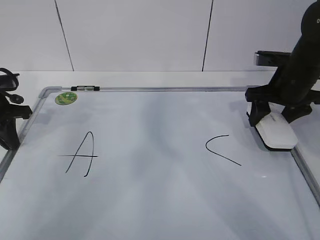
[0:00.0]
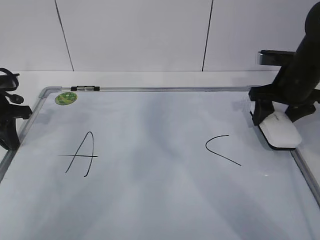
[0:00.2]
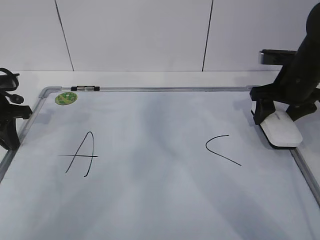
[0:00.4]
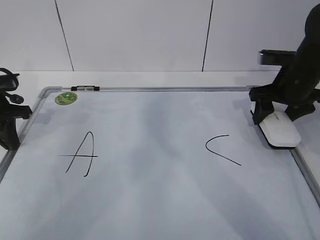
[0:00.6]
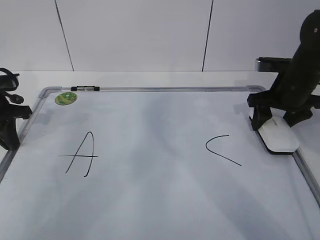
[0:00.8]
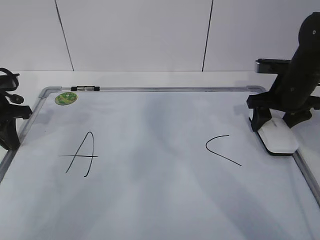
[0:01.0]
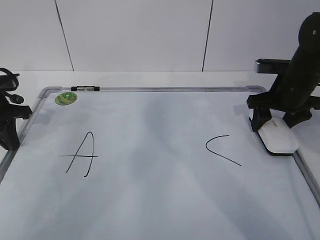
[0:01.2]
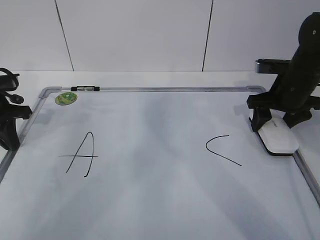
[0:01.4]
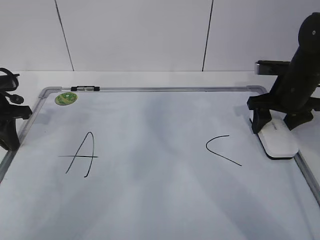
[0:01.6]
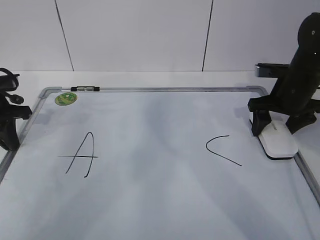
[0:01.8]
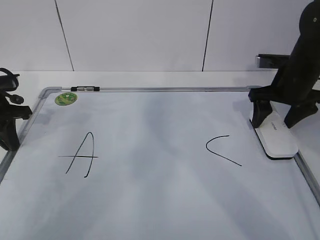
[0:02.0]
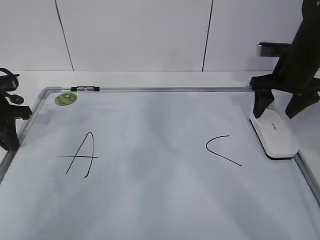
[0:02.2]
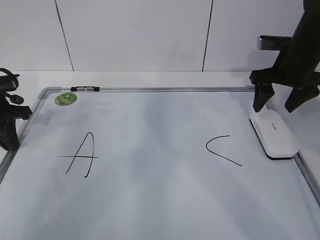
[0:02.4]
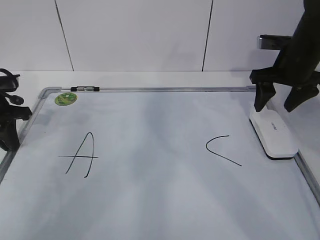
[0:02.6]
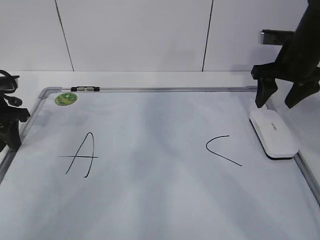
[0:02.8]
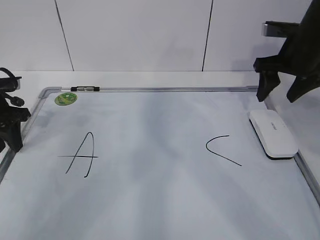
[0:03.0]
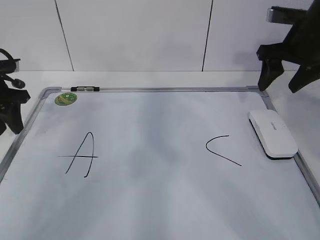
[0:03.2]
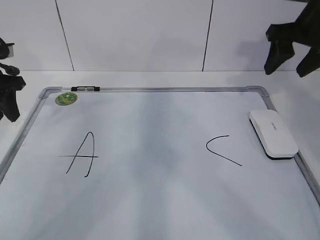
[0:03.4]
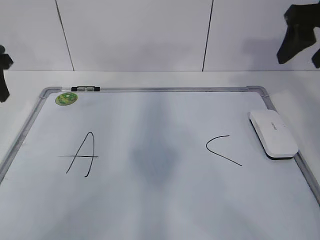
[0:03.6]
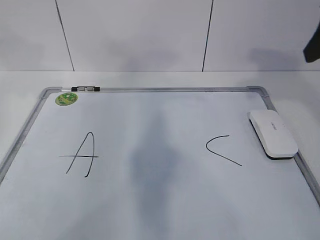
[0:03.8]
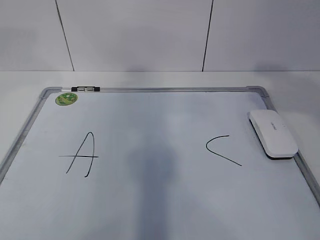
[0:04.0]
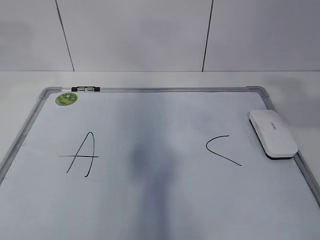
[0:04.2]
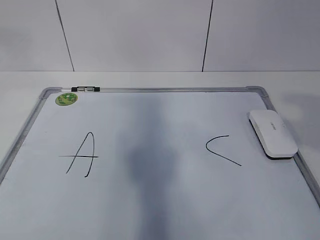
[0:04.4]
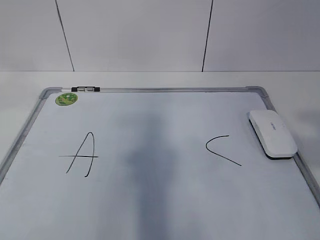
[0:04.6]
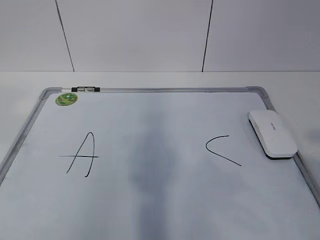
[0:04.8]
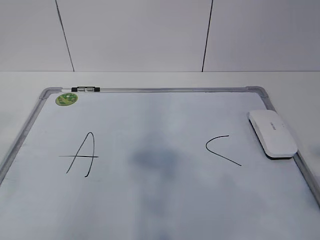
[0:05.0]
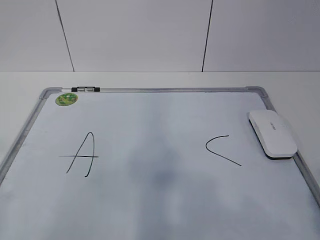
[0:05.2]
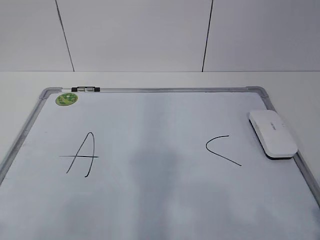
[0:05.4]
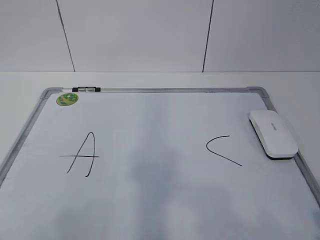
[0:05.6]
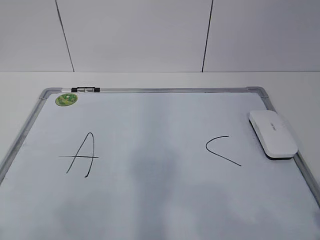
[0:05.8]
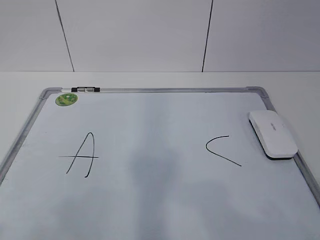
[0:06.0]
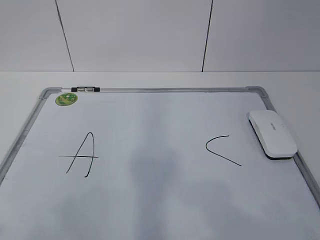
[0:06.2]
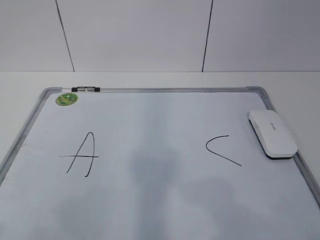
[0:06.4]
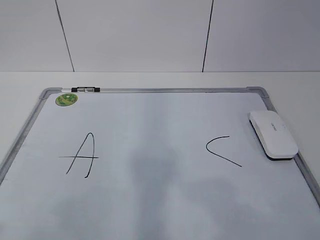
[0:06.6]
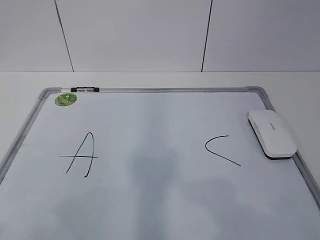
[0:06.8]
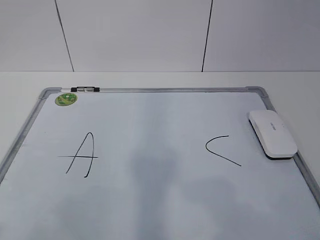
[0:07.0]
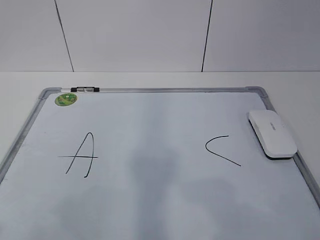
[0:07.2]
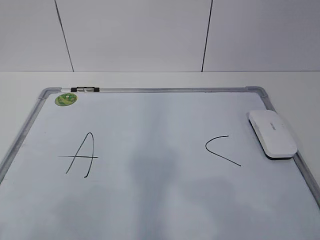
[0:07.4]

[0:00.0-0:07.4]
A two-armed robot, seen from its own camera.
Task of the whole recording: pick up the eraser on the blackboard and erase the letter "B".
0:00.0 to 0:01.4: There are only small adjustments of the grippers.
0:01.4 to 0:03.0: The left gripper opens. The right gripper goes some 5 cm upward, and opens, then closes again.
0:03.0 to 0:04.4: The left gripper travels upward and backward by approximately 35 cm; the right gripper goes about 35 cm backward and upward.
0:04.4 to 0:06.0: The left gripper goes approximately 25 cm backward and downward. The right gripper goes approximately 15 cm downward and backward.

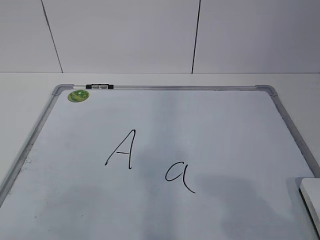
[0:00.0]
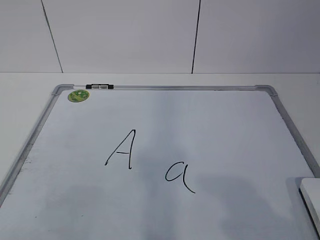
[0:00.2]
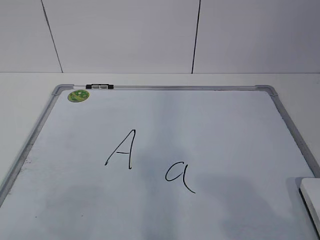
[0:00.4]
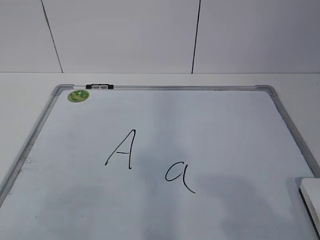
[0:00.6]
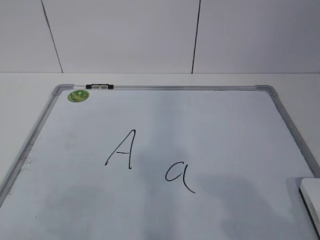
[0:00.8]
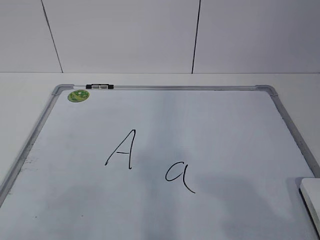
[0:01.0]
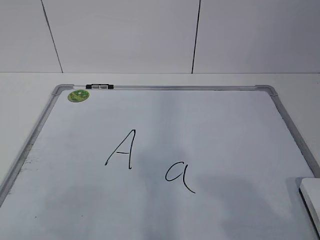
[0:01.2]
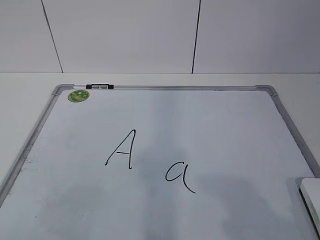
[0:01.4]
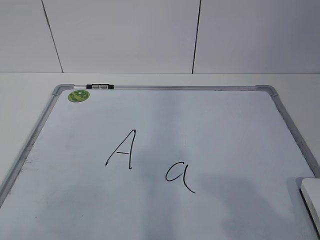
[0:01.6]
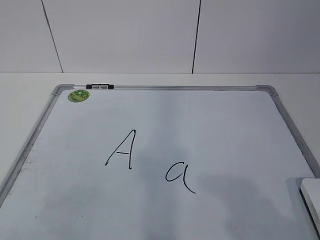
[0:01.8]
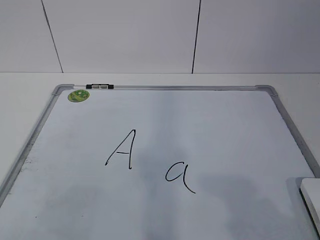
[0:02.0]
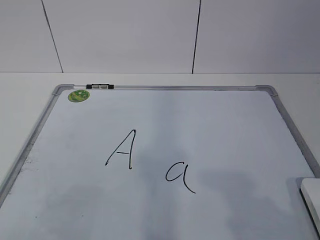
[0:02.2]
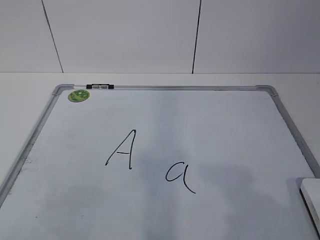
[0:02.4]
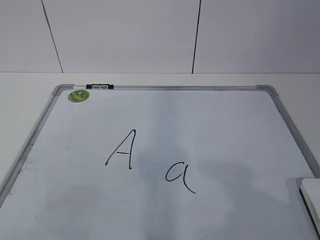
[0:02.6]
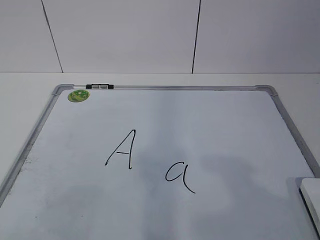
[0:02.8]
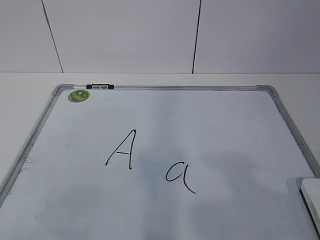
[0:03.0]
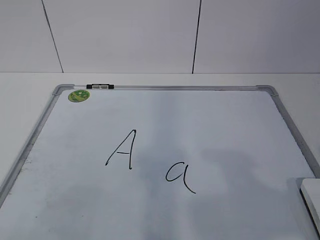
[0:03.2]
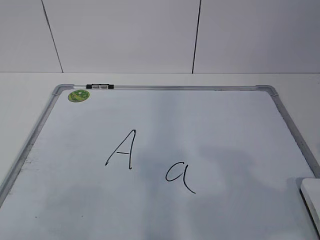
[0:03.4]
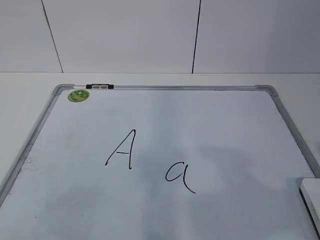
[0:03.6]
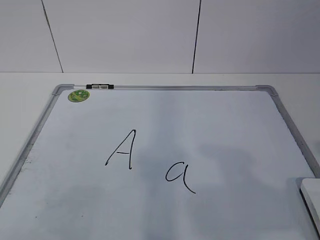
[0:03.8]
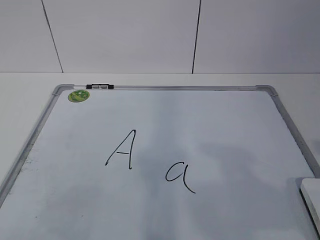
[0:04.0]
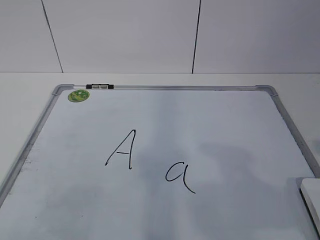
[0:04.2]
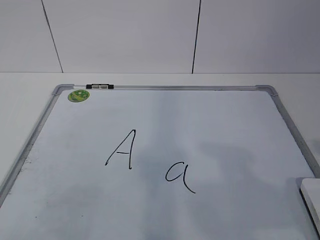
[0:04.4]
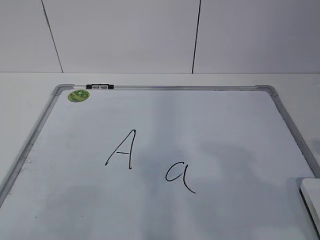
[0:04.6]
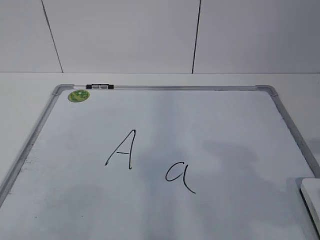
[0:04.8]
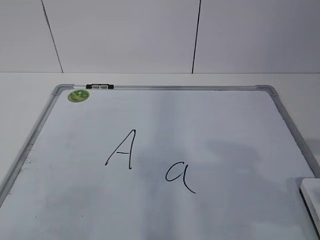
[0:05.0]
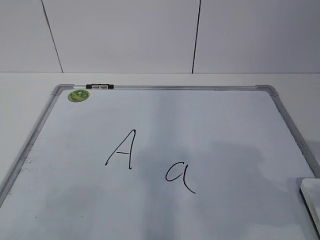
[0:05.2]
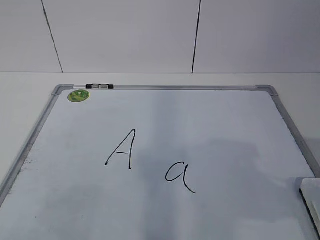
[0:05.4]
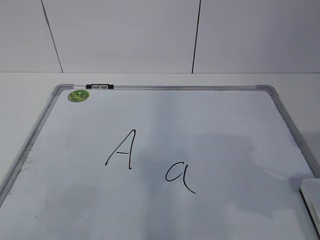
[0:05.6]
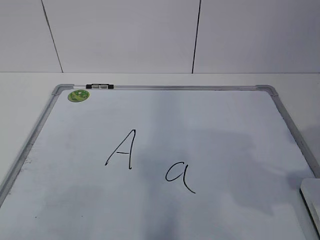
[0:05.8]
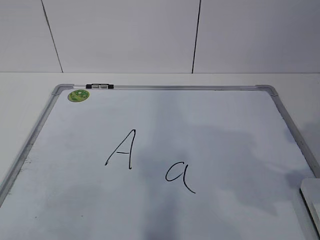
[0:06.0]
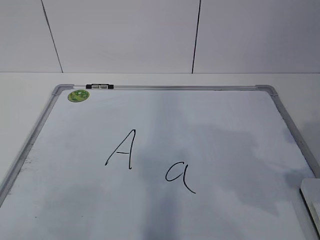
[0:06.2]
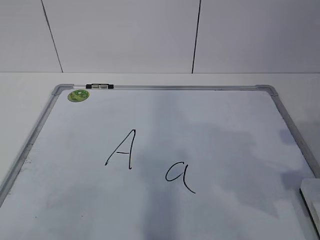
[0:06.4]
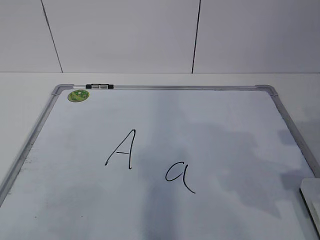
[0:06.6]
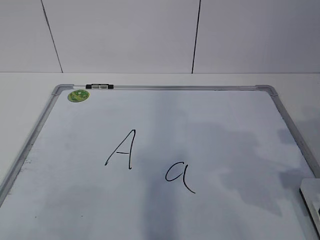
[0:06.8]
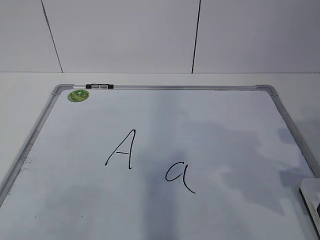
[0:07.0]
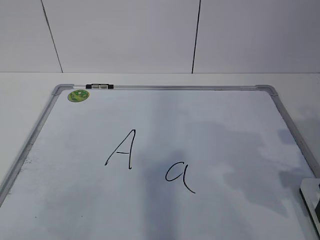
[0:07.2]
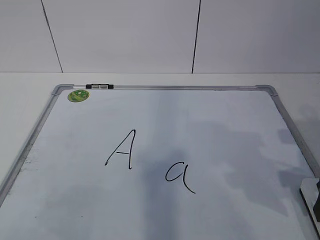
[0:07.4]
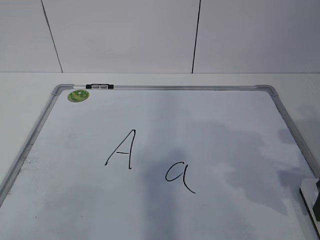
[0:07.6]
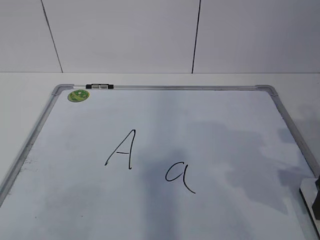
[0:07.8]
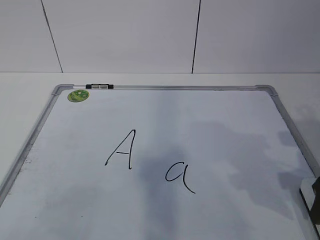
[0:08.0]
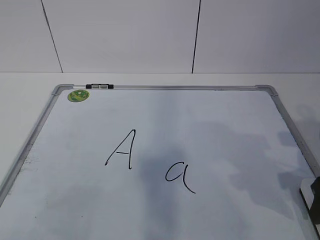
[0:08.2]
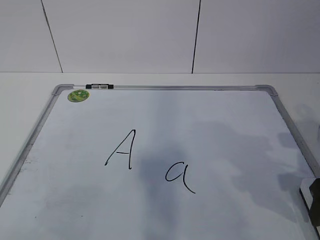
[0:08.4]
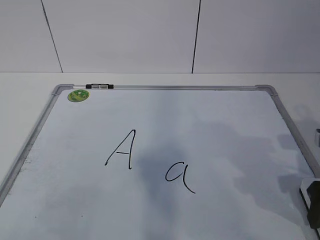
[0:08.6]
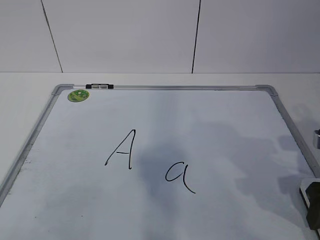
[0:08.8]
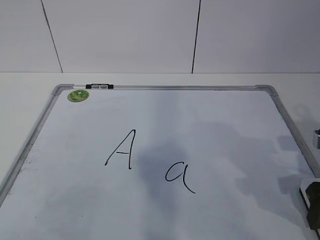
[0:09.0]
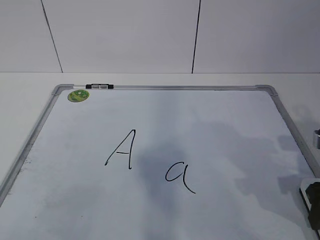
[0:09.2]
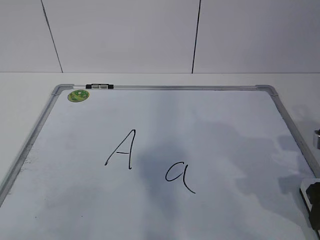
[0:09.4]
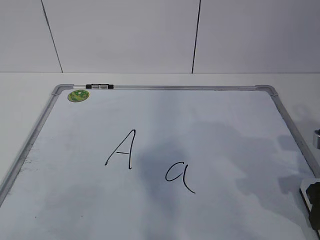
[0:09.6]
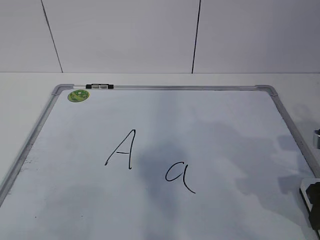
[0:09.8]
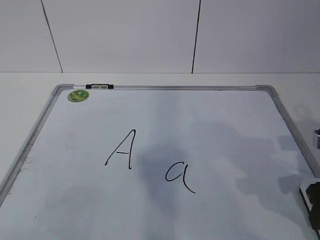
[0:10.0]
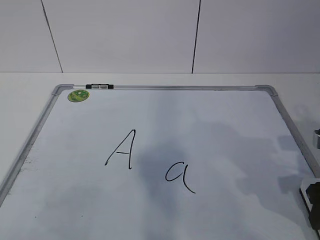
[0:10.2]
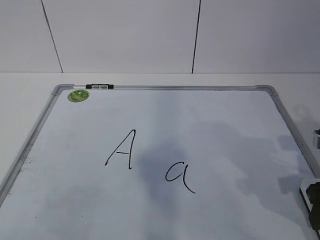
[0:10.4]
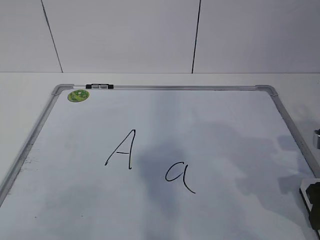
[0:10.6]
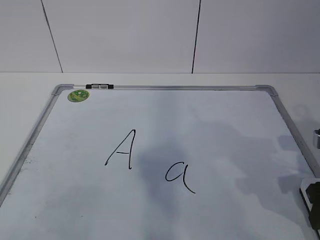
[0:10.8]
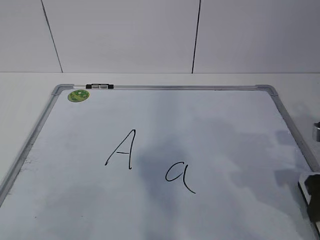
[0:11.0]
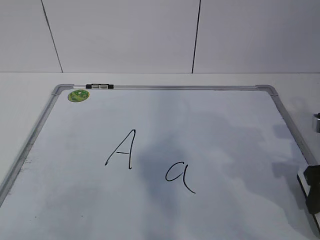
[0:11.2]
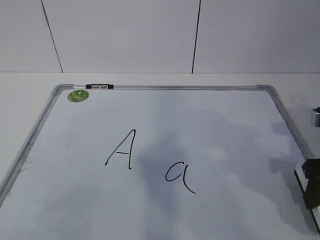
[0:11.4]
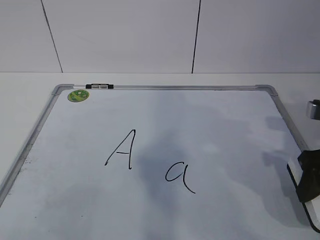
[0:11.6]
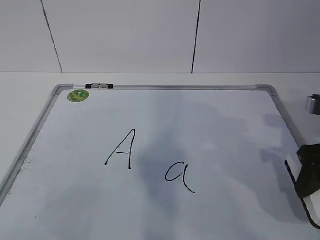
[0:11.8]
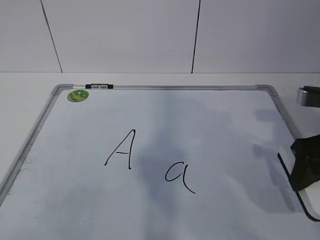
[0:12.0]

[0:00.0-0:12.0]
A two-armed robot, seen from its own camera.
Task of the whole recording: pick up the eraser on the blackboard and erase the letter "a".
0:10.4 to 0:12.0: The right gripper shifts about 5 cm upward.

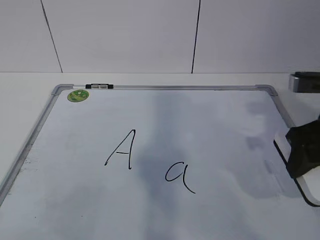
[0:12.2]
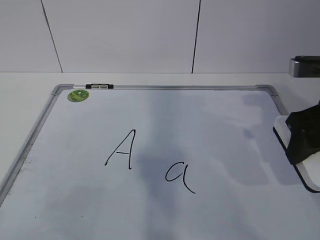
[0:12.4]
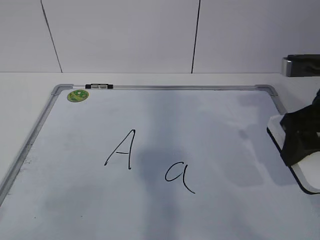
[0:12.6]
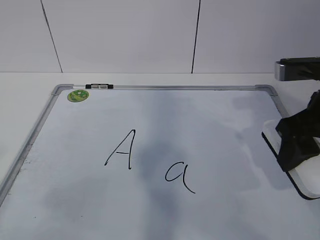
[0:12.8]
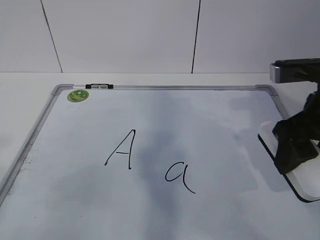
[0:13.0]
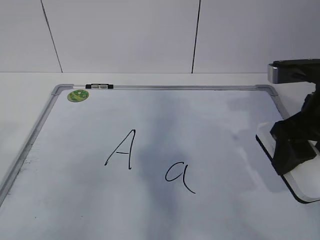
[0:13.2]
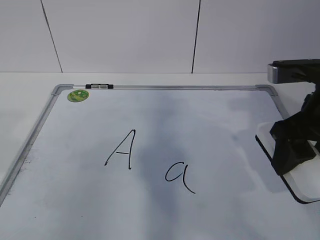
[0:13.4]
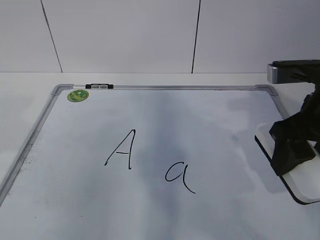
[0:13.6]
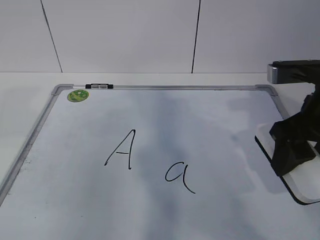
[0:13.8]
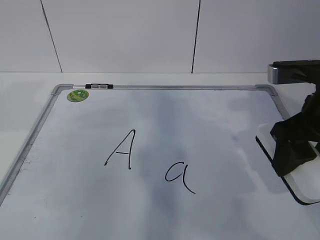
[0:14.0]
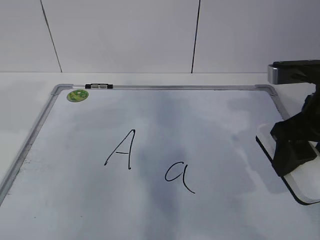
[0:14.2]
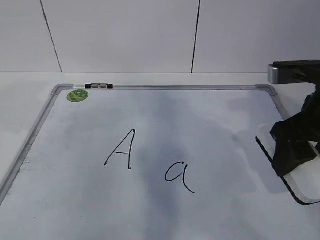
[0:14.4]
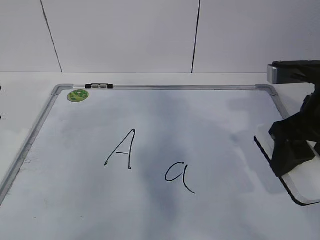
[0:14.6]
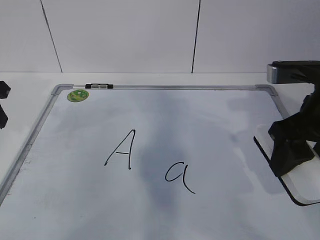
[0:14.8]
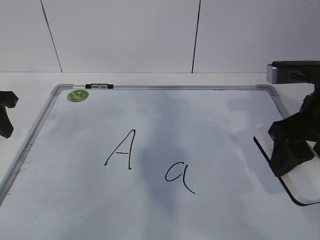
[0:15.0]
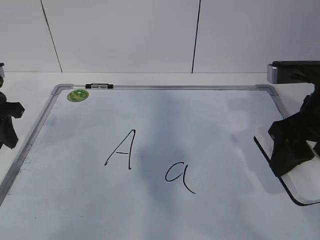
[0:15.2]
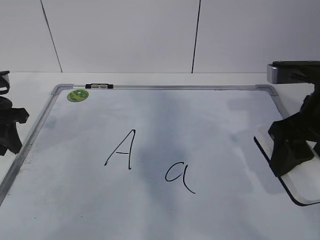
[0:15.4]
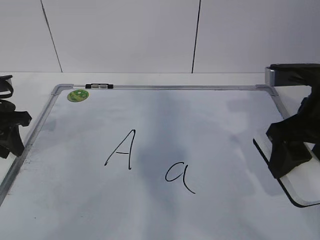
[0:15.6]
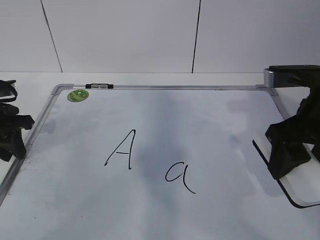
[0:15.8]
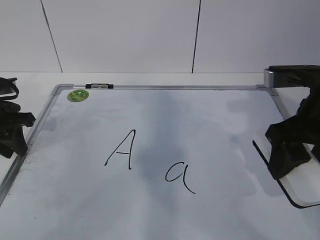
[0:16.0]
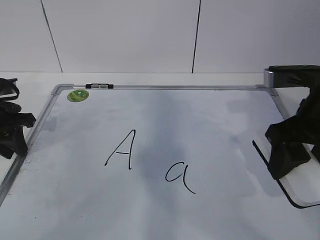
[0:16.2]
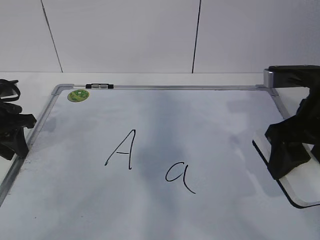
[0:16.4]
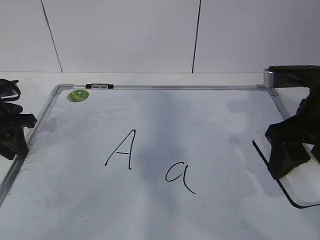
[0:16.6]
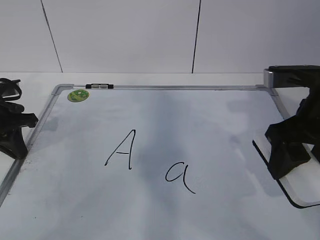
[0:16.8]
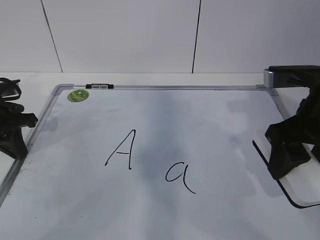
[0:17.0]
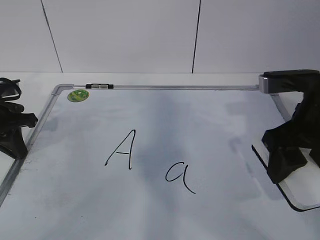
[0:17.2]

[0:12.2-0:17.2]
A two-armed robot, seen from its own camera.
Task of the whole recording: pick up the eraser on the blackboard and erase the letter "a".
0:13.8 to 0:15.6: The left gripper heads downward and forward, covering roughly 20 cm.
0:15.6 to 0:17.2: The left gripper closes up.
